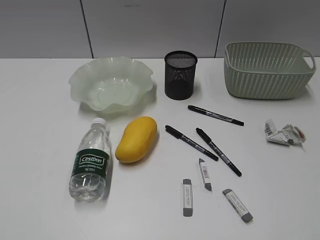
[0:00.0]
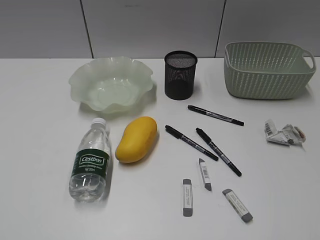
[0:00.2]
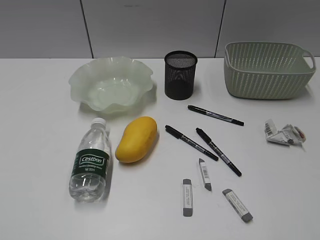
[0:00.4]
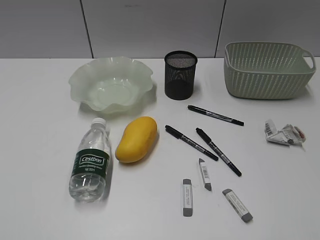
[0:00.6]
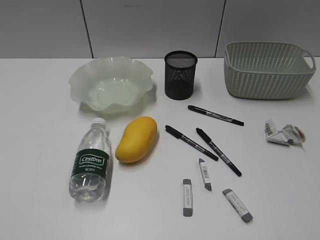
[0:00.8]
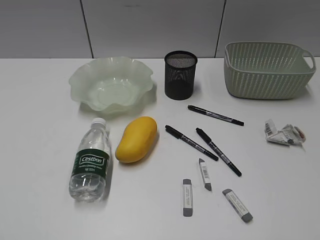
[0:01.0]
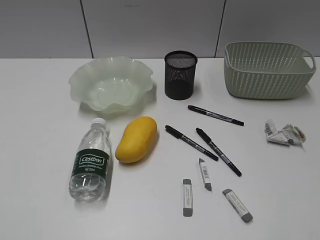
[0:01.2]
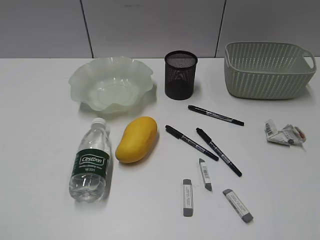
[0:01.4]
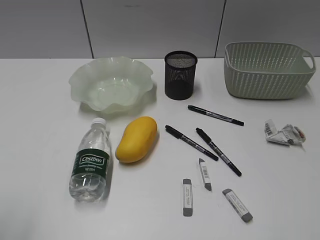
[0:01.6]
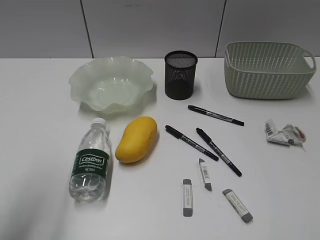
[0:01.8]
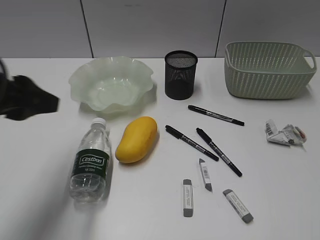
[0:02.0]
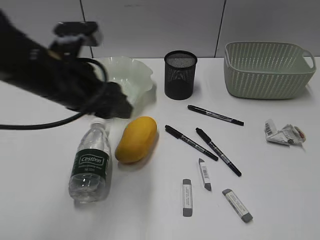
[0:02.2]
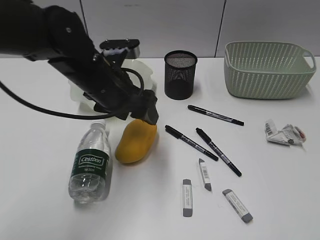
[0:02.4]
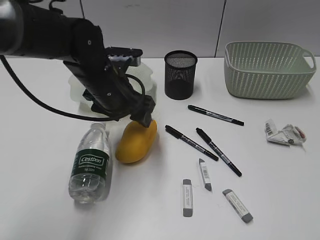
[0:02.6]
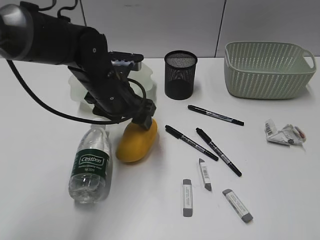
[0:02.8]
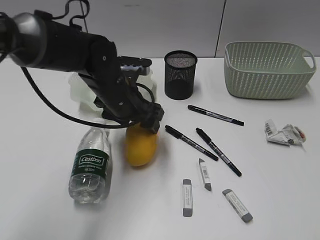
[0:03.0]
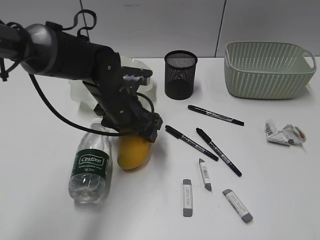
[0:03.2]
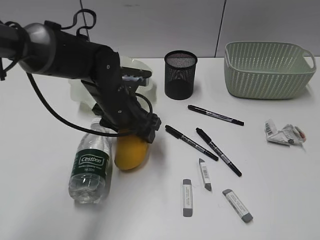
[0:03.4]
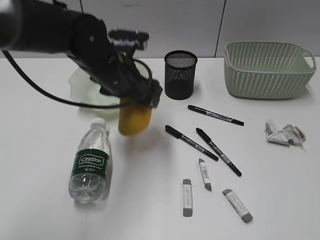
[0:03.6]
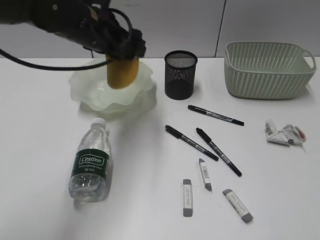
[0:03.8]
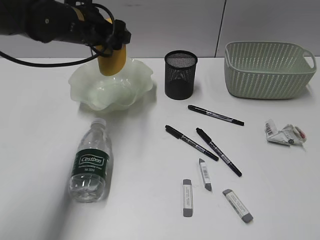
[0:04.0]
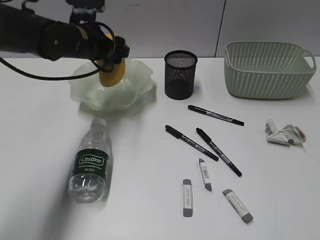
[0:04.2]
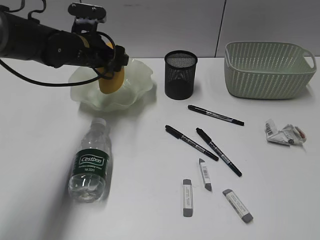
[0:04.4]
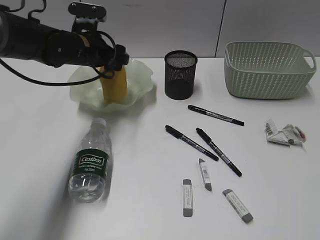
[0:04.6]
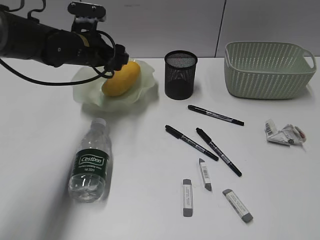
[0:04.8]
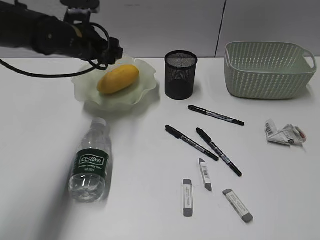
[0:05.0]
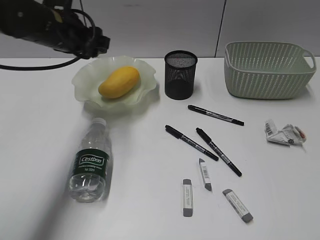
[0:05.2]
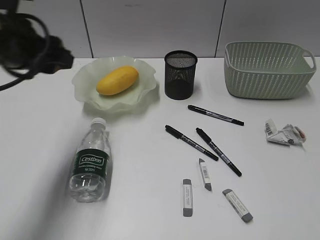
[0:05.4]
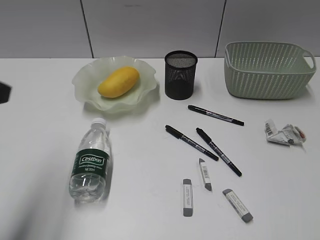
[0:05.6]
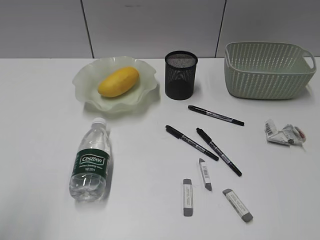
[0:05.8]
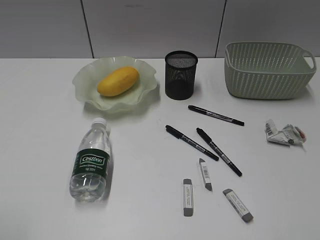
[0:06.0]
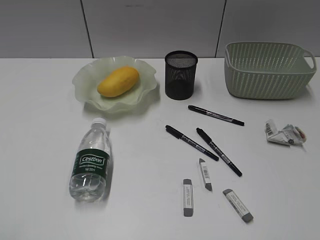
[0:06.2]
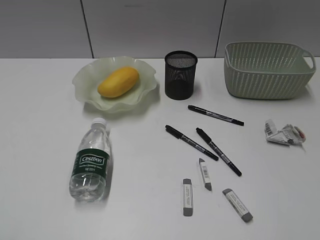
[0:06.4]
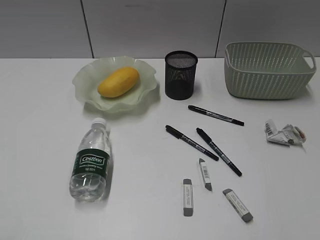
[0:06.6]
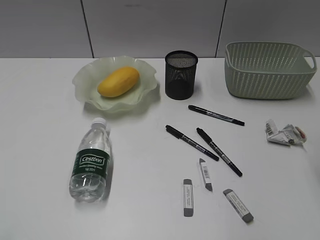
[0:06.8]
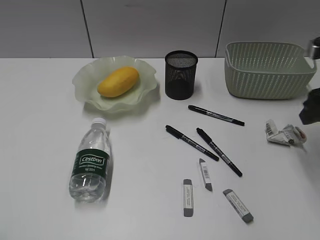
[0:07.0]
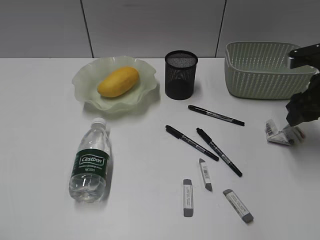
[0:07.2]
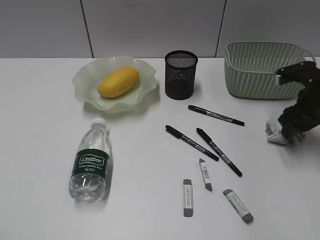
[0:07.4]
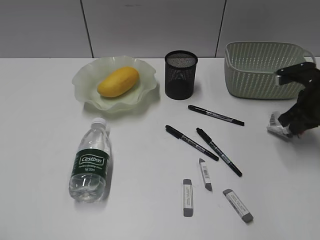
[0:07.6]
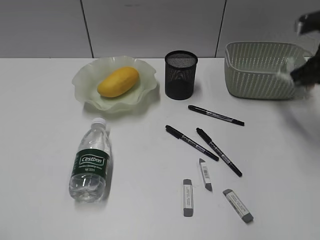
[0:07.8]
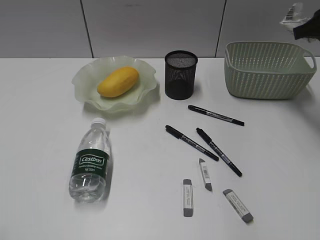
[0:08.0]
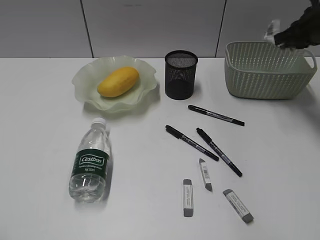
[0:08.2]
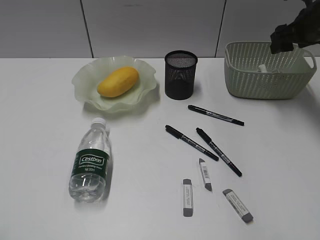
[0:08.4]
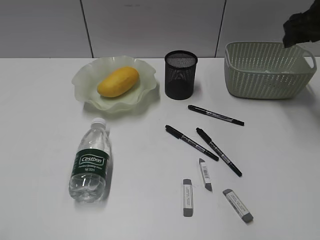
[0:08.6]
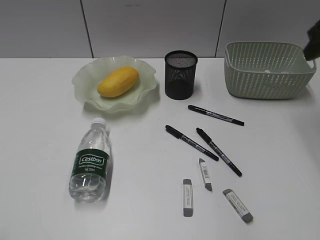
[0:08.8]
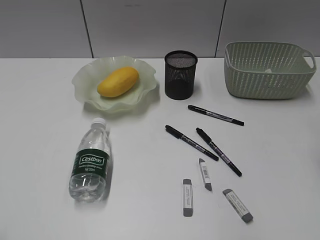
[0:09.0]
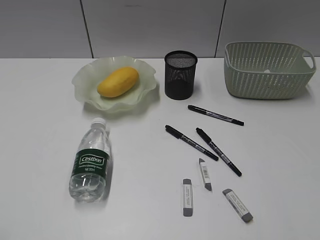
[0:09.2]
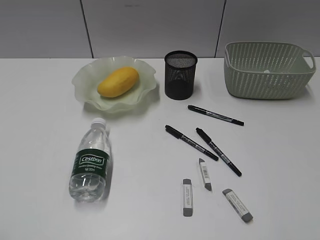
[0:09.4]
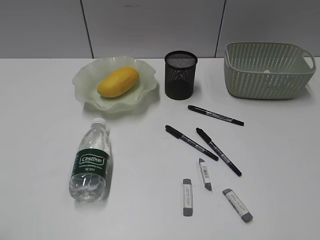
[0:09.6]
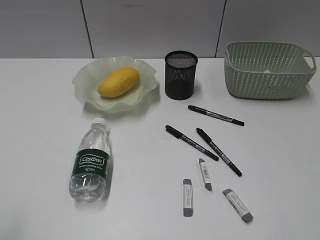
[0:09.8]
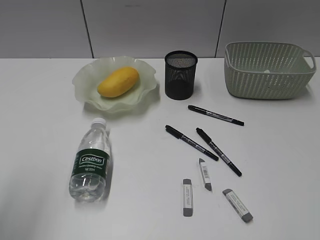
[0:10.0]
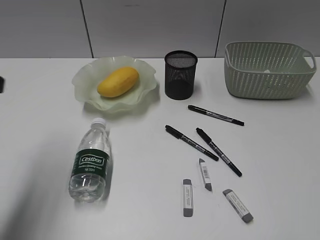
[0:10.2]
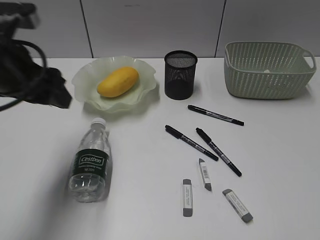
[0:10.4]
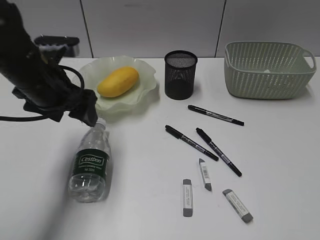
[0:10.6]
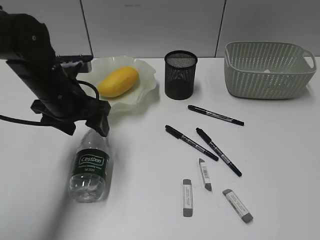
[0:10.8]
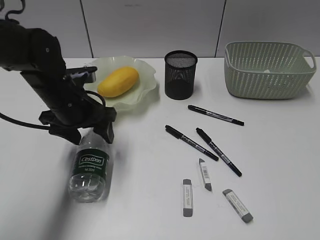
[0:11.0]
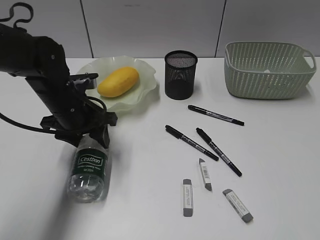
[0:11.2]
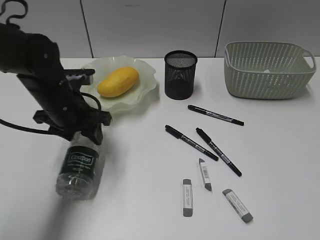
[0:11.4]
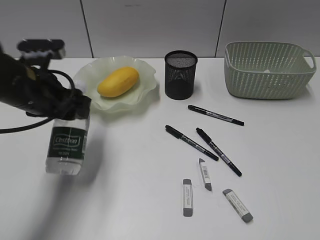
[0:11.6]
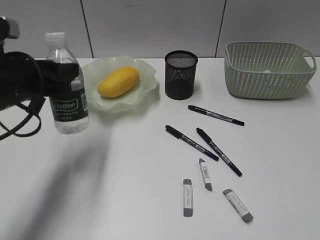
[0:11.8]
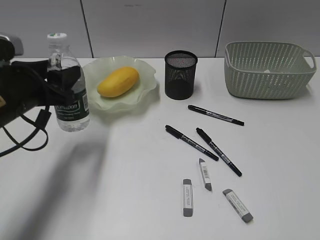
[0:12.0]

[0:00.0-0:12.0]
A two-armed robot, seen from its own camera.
Step, 0:01.4 to 0:03.2: Grasp the mango with left gripper.
Step, 0:03.4 to 0:04.8: Place the mango in the plate with left gripper.
Step, 0:03.4 to 0:07.6: Grasp the waste paper with right gripper.
Step, 0:07.8 to 0:08.4: Place the waste paper in the basket with right gripper.
Step, 0:08.6 to 0:11.2: Grasp the bottle with left gripper.
0:01.6 to 0:03.0: The left gripper travels forward, to the right and downward by roughly 40 cm, and opens up.
0:03.0 to 0:04.4: The left gripper is displaced forward and to the left by some 10 cm, and travels upward and back again, roughly 10 cm each way.
0:04.4 to 0:06.0: The left gripper travels backward and to the left by about 40 cm.
0:06.0 to 0:07.6: The right gripper goes roughly 35 cm forward, and closes up.
0:07.6 to 0:09.0: The right gripper travels upward and backward by about 20 cm, and opens its fingers.
0:09.0 to 0:10.4: The left gripper moves forward and to the right, approximately 30 cm.
0:10.4 to 0:12.0: The left gripper heads downward, covering about 5 cm.

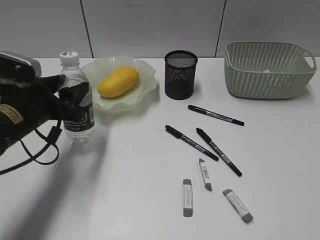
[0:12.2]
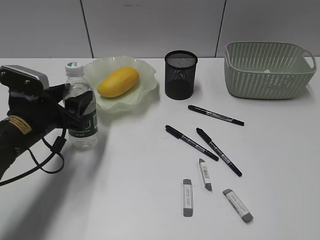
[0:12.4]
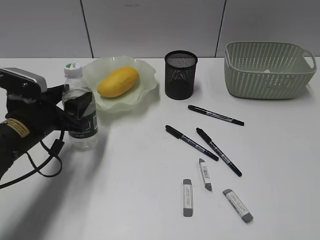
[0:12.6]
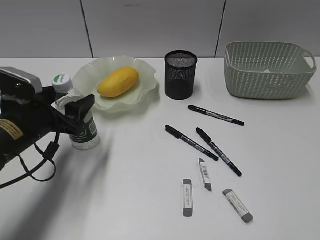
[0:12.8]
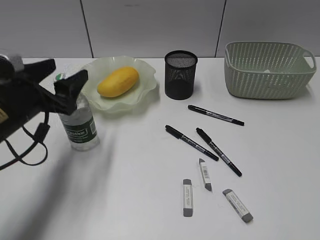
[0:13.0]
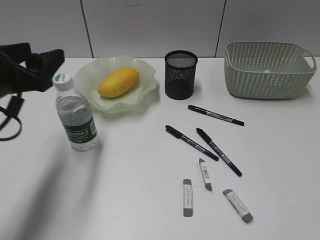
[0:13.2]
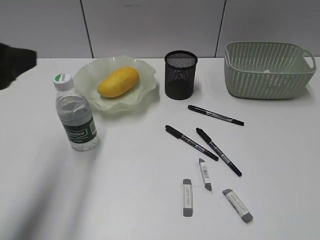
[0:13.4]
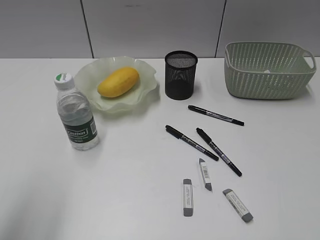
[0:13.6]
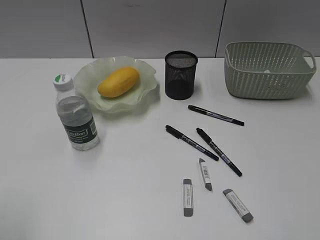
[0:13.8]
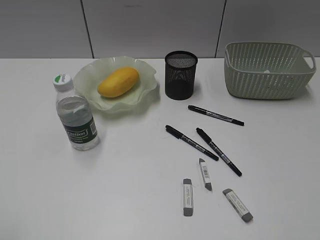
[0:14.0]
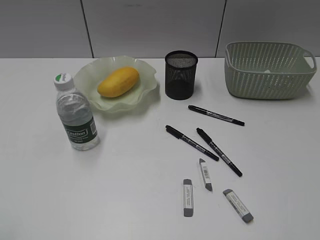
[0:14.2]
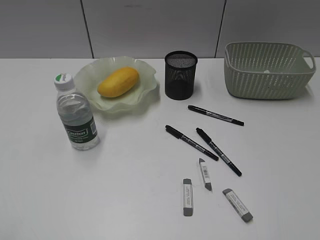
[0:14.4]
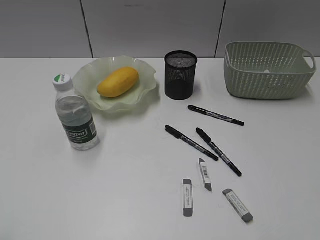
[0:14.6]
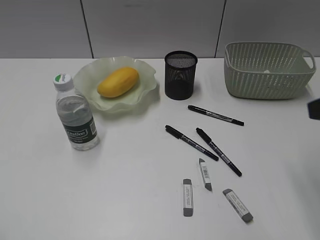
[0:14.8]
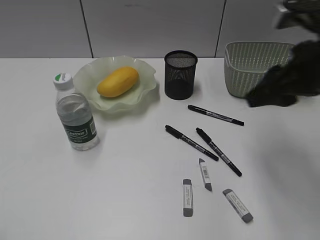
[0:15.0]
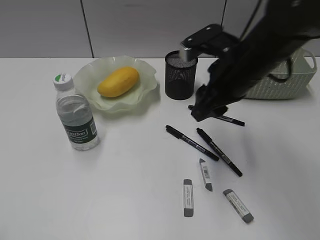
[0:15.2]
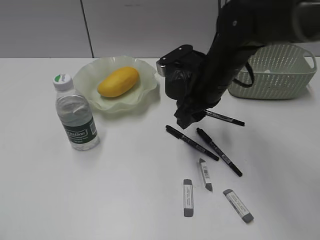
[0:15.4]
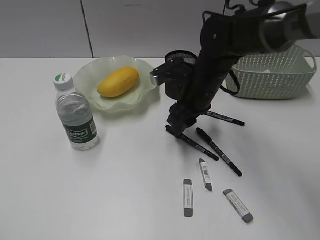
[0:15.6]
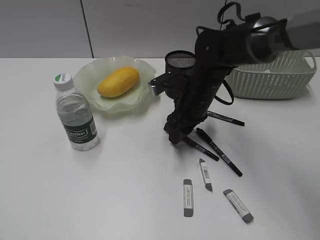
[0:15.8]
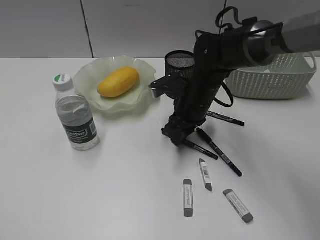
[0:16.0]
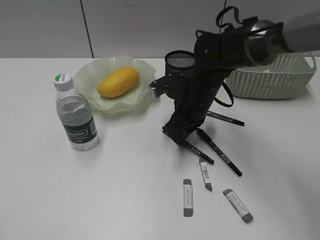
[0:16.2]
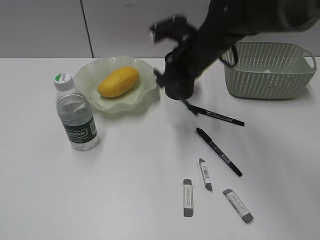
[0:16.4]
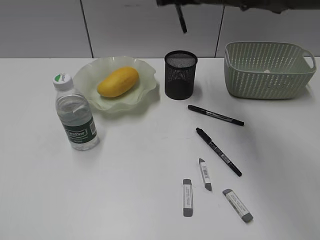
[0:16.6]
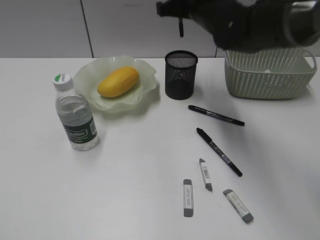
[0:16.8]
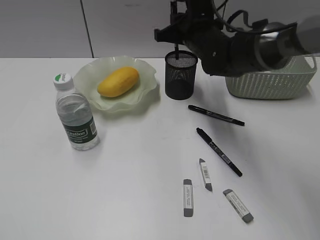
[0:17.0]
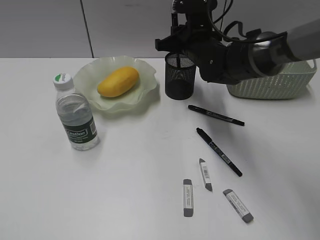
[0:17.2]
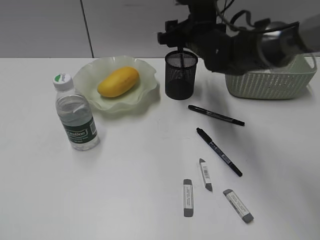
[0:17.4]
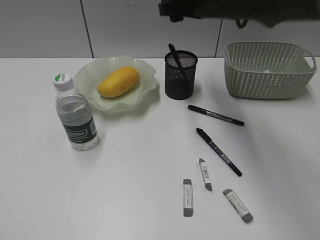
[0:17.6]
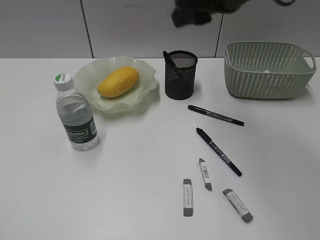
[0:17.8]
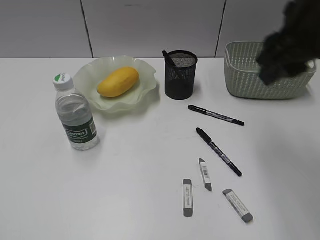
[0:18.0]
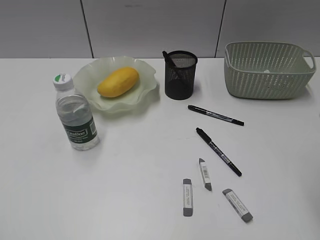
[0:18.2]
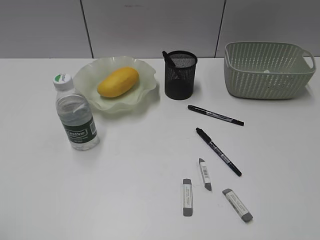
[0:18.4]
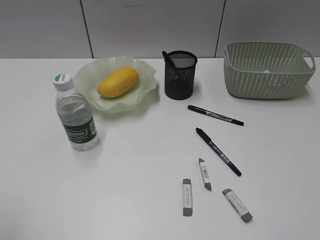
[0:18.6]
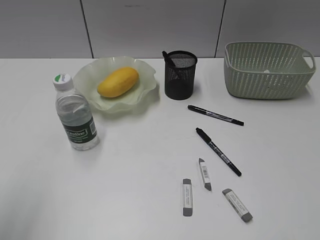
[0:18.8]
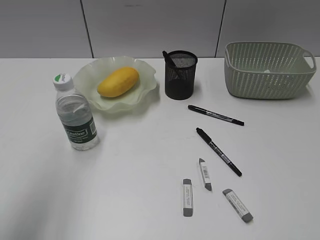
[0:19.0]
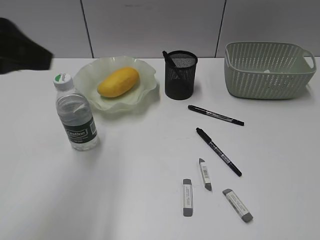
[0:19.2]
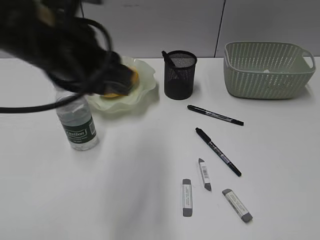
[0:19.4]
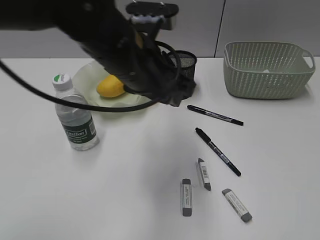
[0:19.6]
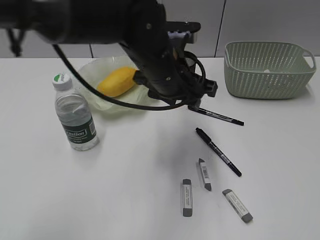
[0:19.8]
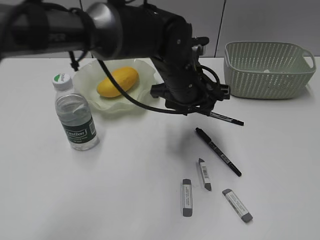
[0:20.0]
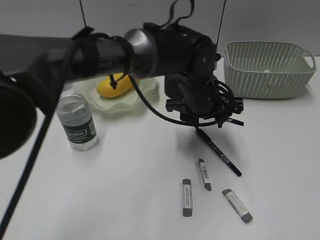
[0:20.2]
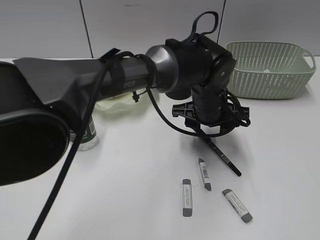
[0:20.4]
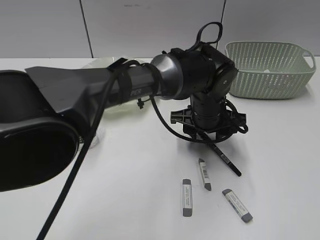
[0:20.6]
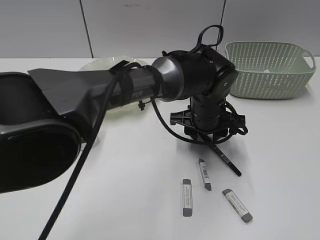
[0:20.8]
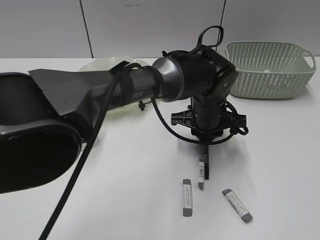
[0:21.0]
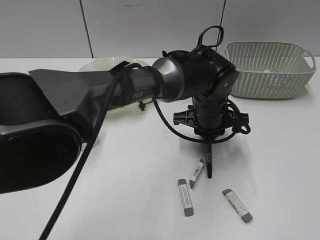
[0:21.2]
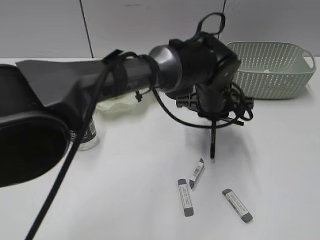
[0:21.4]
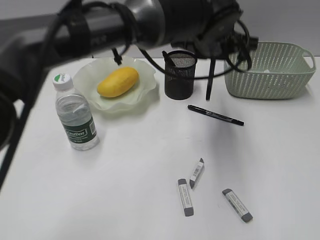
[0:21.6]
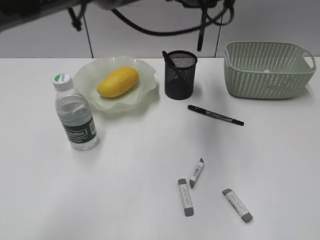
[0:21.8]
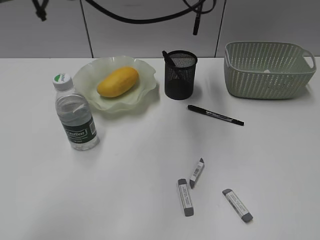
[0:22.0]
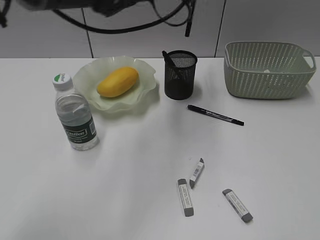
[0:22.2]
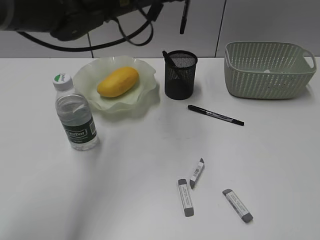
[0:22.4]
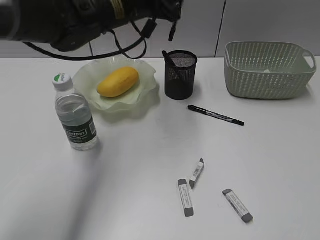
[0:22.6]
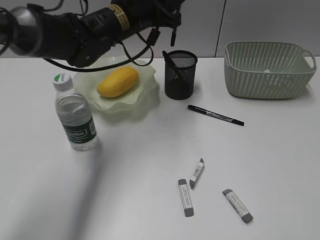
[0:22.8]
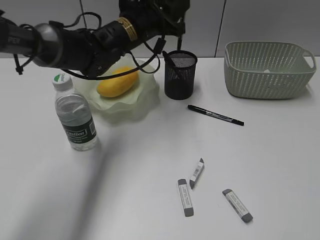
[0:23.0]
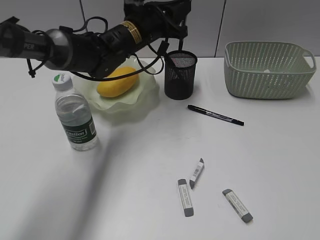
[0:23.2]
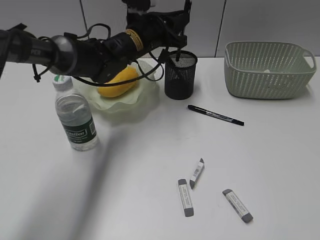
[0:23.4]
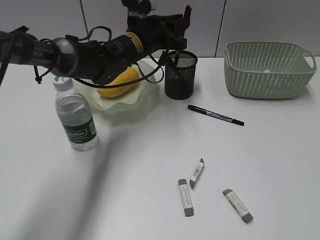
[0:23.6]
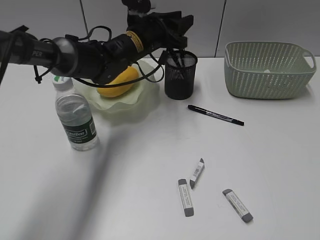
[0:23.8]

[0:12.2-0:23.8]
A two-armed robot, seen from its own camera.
Step, 0:12.2 to 0:13.0: Stand the bottle with left gripper.
Step, 0:13.2 to 0:16.0: Grasp the black pen with right gripper.
Step, 0:16.2 to 0:17.4: Place the black pen in pen holder with right gripper.
Step, 0:17.6 to 0:21.2: Grasp the black pen with left gripper.
0:12.2 to 0:13.6: The left gripper travels upward, backward and to the left by some 25 cm.
0:13.6 to 0:15.0: The left gripper goes some 10 cm backward. Meanwhile the right gripper travels forward by about 30 cm.
0:15.0 to 0:16.6: The right gripper shifts about 15 cm forward and to the left, travels downward and back again, roughly 15 cm each way, and closes up.
0:16.6 to 0:18.0: The right gripper goes some 20 cm backward and to the right, and opens up.
0:18.0 to 0:19.4: The right gripper shifts about 25 cm backward and to the right, while the left gripper goes approximately 35 cm forward and to the right.
0:19.4 to 0:21.0: The left gripper travels to the right, downward and forward by about 30 cm.
0:21.0 to 0:22.4: The left gripper travels upward and to the left by roughly 25 cm.
0:22.4 to 0:23.8: The left gripper shifts about 15 cm downward and forward, and opens.
